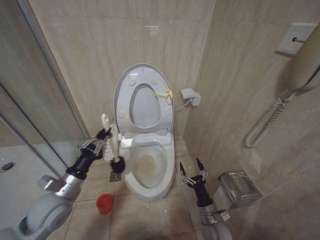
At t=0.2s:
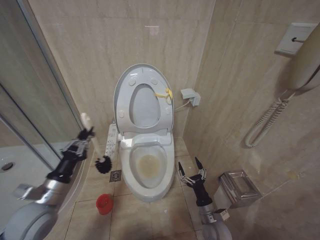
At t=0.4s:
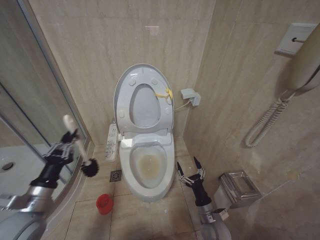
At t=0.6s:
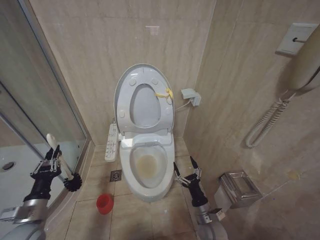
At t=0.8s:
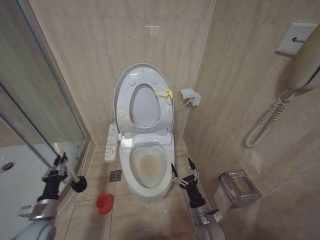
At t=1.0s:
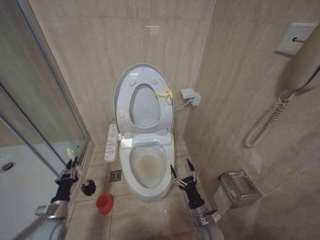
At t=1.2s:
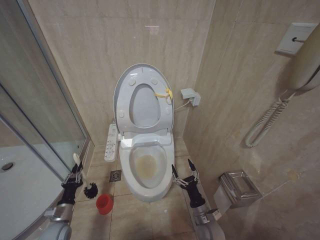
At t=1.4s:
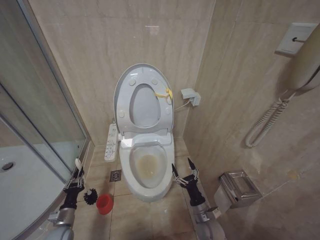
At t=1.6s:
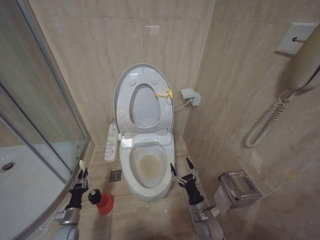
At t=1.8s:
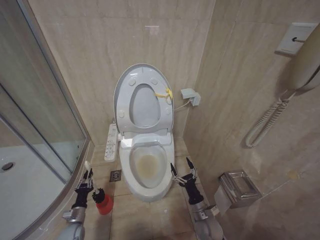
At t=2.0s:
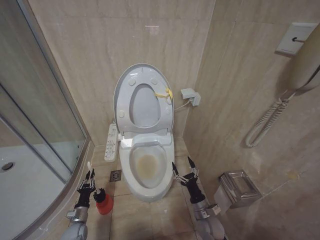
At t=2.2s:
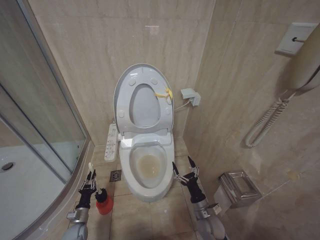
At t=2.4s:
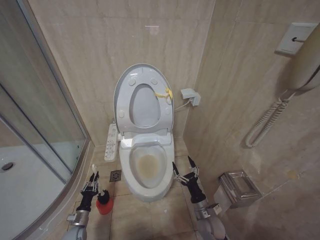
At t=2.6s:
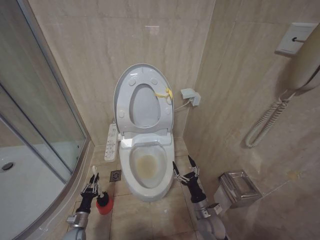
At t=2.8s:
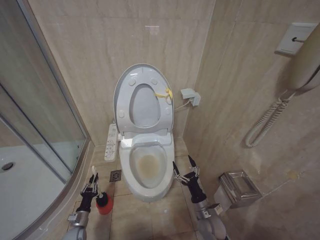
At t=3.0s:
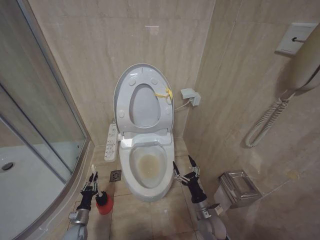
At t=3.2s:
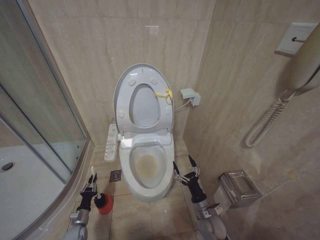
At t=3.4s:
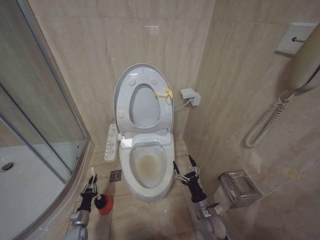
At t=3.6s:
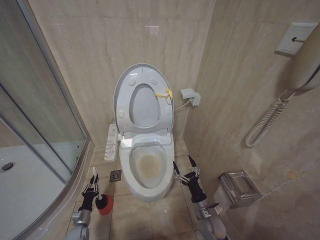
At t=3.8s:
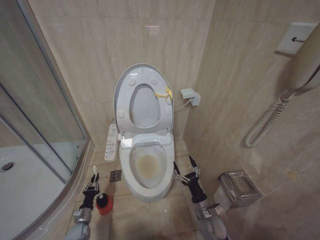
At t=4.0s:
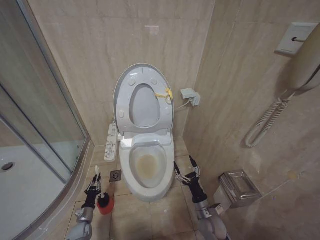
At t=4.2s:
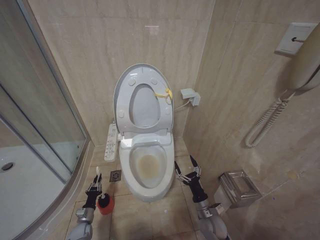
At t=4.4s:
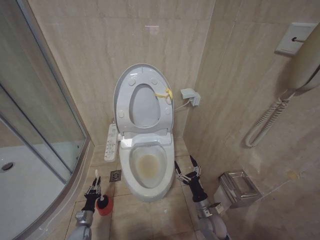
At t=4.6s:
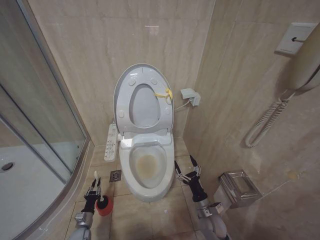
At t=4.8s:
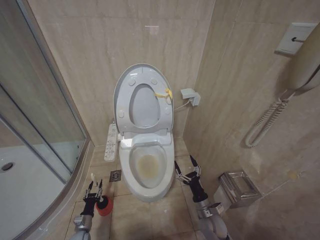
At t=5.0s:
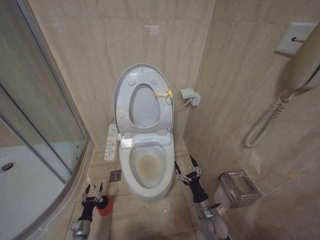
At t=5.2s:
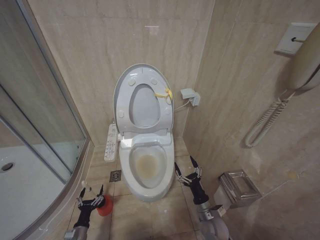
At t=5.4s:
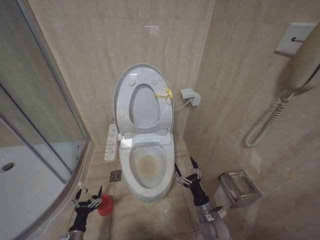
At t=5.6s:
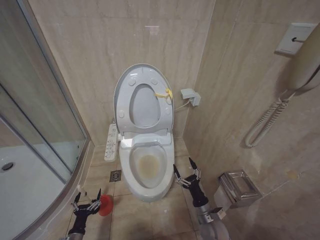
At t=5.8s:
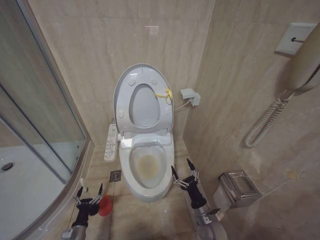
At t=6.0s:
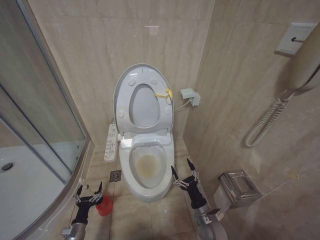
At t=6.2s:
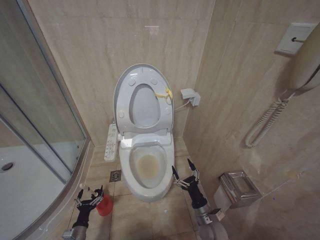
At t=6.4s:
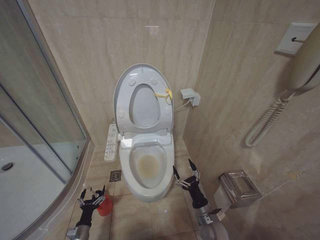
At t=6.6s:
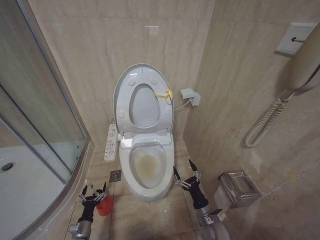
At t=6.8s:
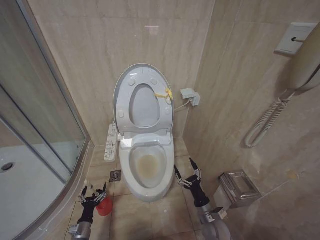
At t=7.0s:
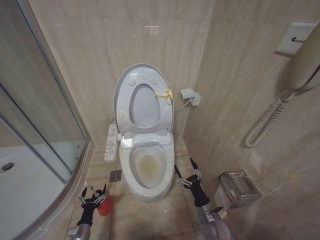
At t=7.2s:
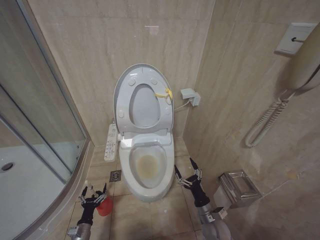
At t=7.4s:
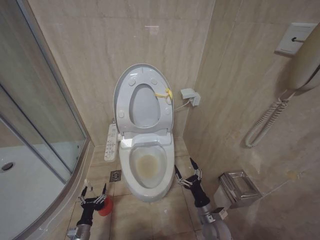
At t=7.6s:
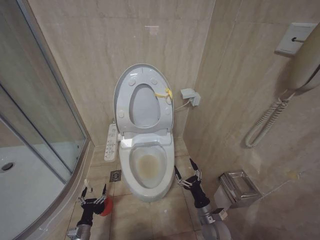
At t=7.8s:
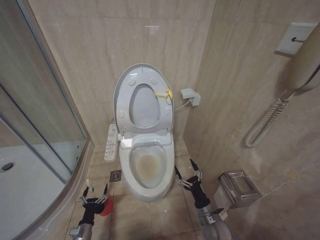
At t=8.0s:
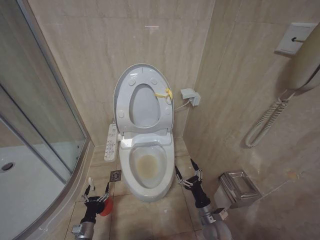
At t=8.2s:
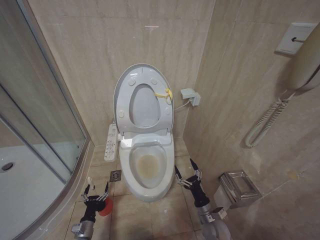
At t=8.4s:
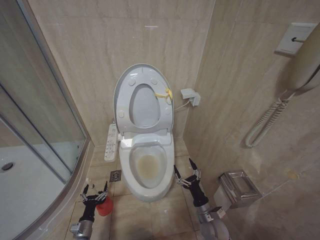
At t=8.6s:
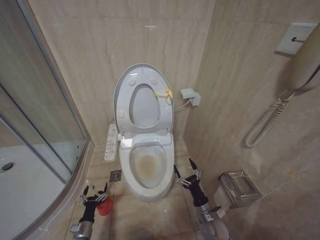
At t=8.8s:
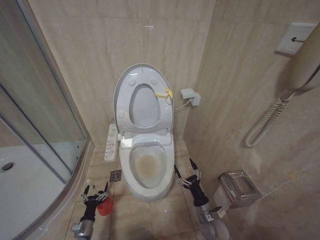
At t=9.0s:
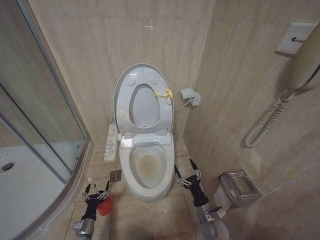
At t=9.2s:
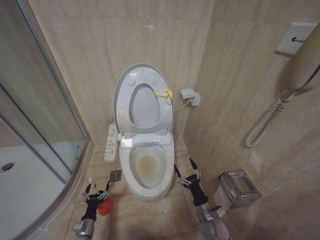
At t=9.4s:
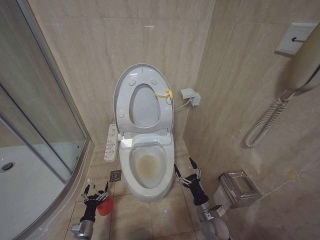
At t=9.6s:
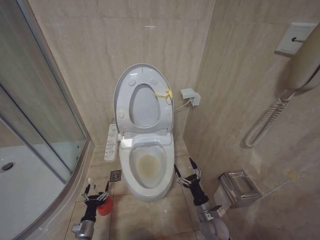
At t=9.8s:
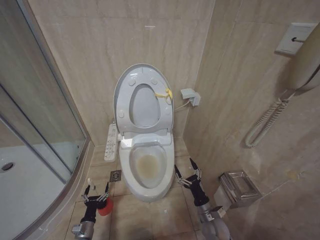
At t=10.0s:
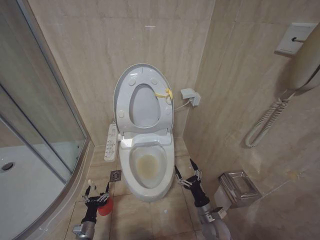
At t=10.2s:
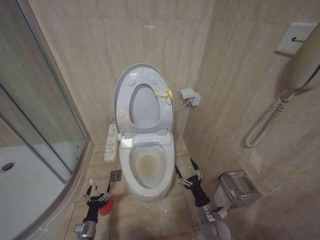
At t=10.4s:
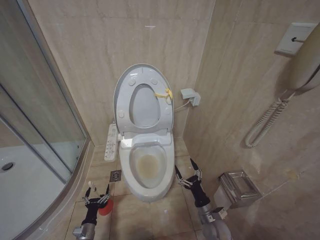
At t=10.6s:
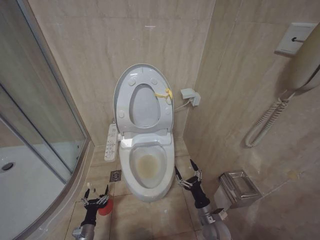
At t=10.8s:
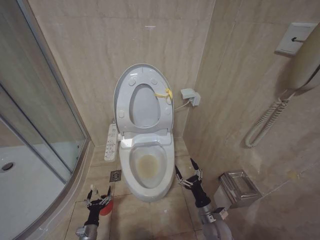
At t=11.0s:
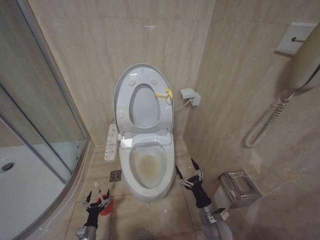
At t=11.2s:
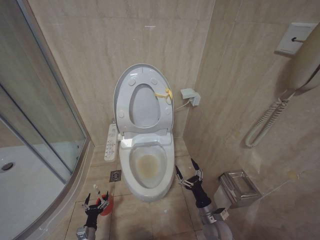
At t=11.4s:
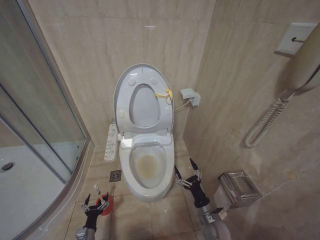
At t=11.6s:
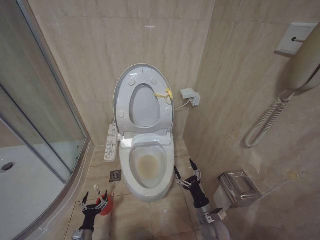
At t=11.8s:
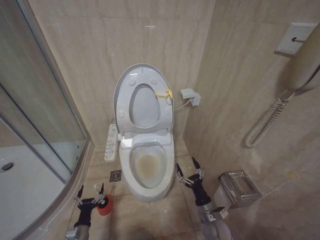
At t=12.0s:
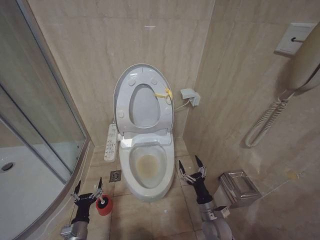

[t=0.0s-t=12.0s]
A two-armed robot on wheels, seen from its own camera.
Task of the whole recording: Open the toilet lid, clean the toilet bowl with a toilet brush, close the toilet lid, and flush.
t=0.0s to t=1.6s: The left gripper goes roughly 25 cm downward.
t=1.6s to t=3.0s: The left gripper goes approximately 5 cm downward.
t=3.0s to t=4.4s: The grippers make only small movements.
t=4.4s to t=6.0s: The left gripper heads backward and upward, covering approximately 10 cm, and opens its fingers.
t=6.0s to t=10.4s: The grippers make only small movements.
t=10.4s to t=12.0s: The left gripper shifts some 10 cm upward.

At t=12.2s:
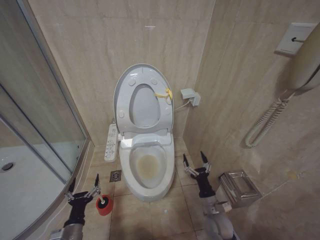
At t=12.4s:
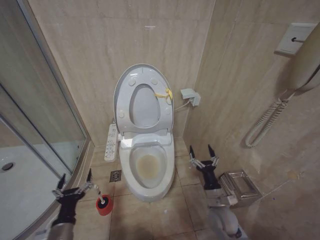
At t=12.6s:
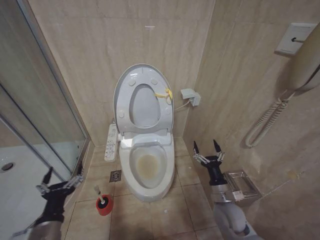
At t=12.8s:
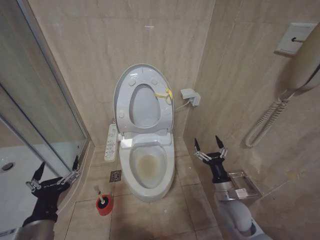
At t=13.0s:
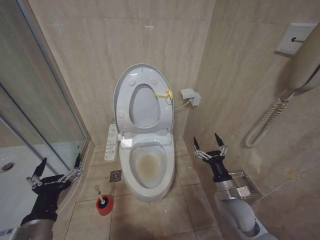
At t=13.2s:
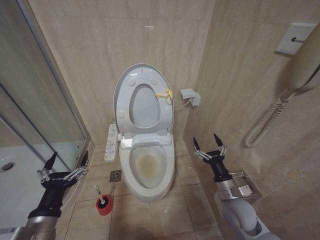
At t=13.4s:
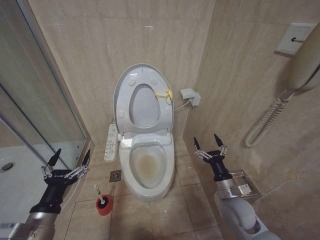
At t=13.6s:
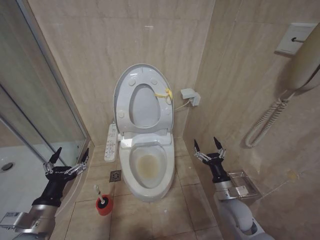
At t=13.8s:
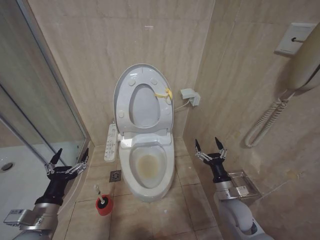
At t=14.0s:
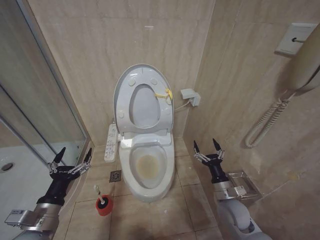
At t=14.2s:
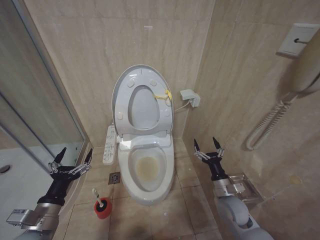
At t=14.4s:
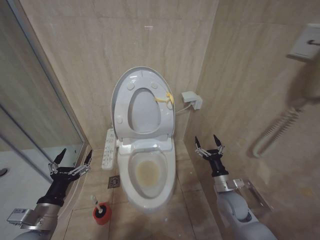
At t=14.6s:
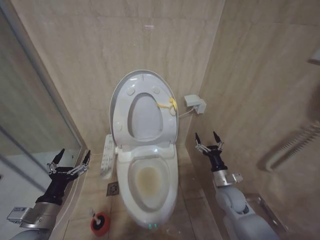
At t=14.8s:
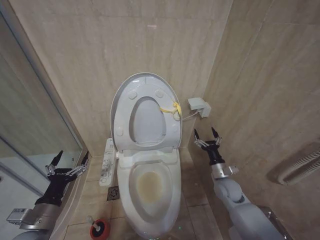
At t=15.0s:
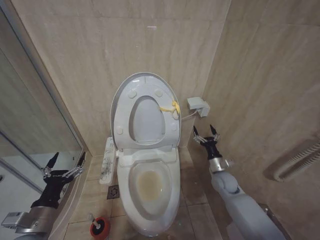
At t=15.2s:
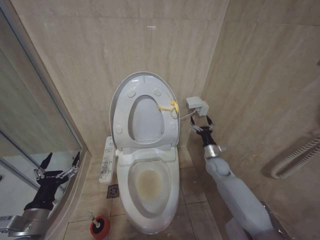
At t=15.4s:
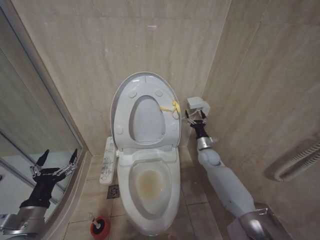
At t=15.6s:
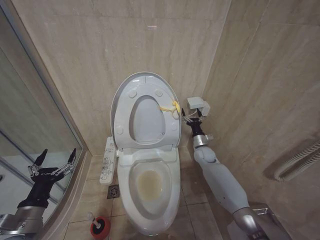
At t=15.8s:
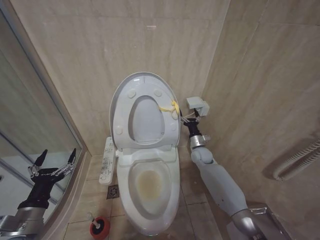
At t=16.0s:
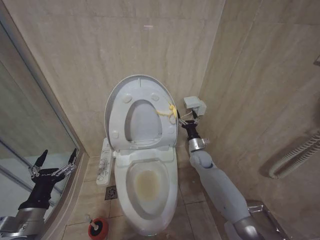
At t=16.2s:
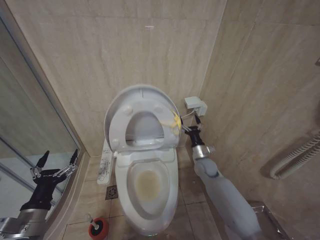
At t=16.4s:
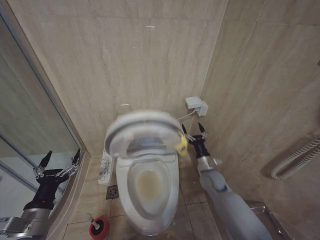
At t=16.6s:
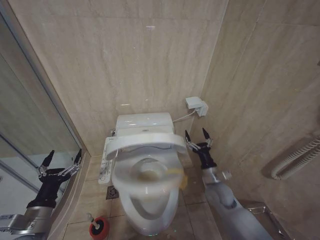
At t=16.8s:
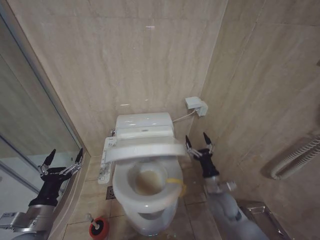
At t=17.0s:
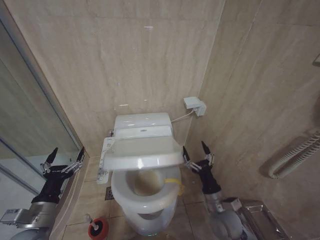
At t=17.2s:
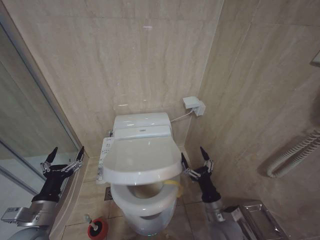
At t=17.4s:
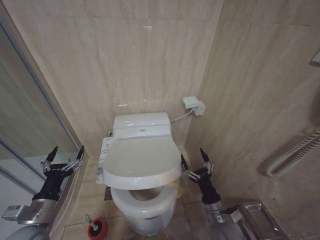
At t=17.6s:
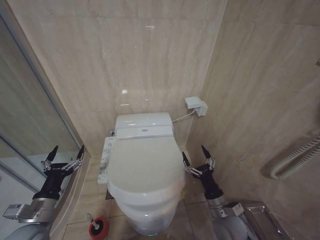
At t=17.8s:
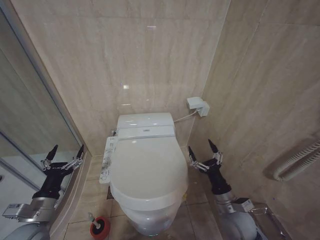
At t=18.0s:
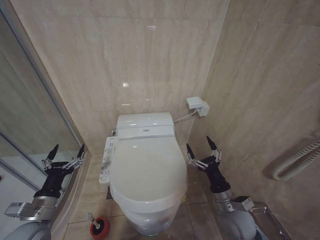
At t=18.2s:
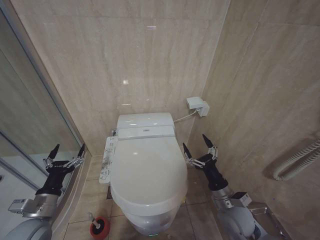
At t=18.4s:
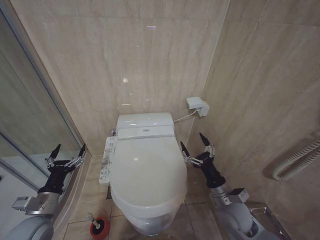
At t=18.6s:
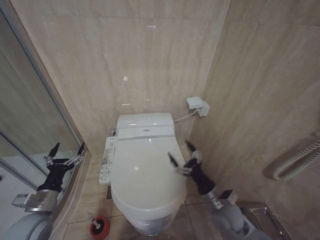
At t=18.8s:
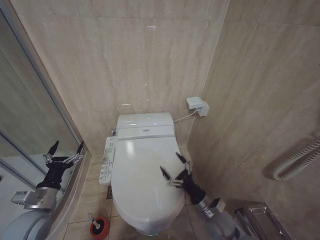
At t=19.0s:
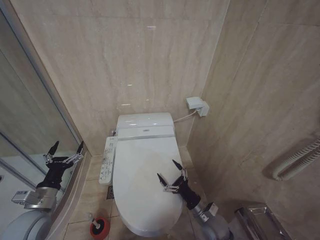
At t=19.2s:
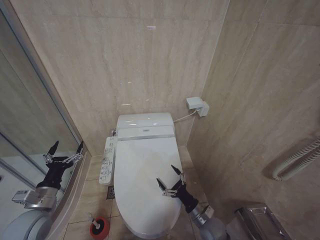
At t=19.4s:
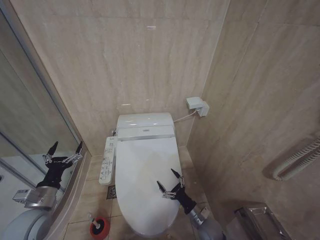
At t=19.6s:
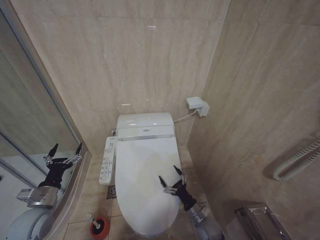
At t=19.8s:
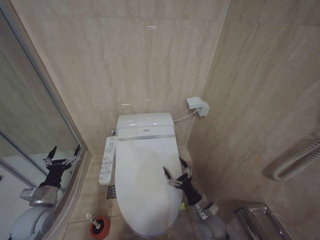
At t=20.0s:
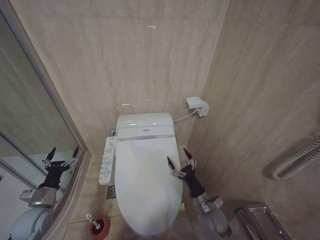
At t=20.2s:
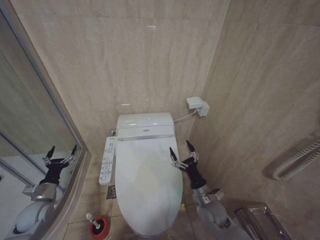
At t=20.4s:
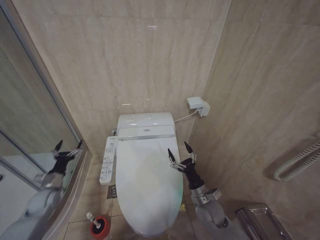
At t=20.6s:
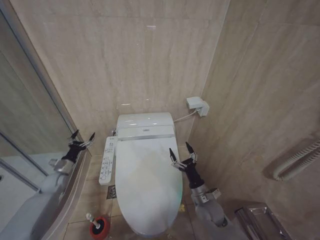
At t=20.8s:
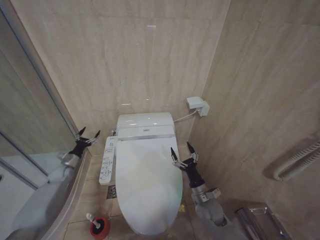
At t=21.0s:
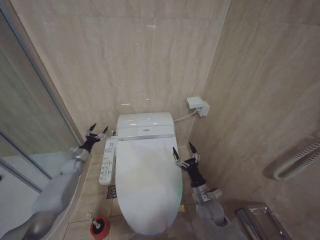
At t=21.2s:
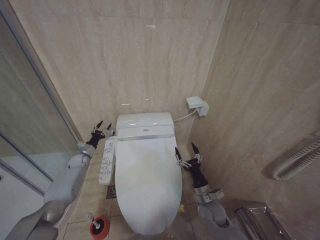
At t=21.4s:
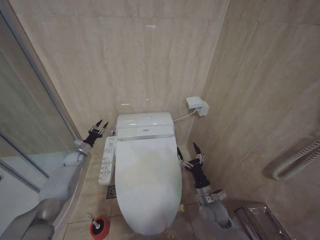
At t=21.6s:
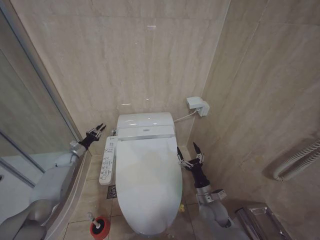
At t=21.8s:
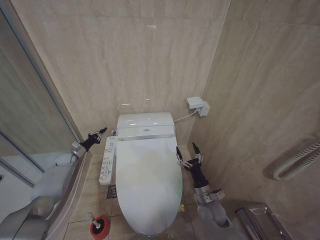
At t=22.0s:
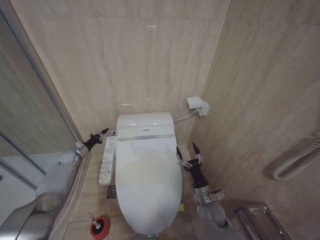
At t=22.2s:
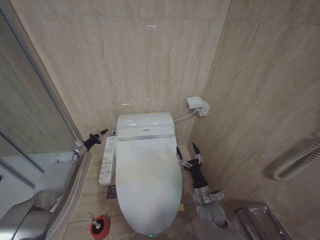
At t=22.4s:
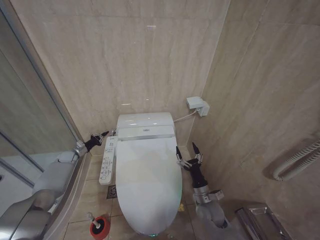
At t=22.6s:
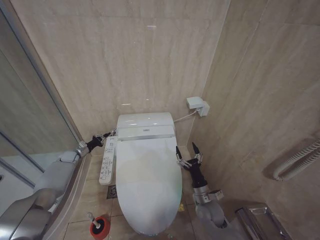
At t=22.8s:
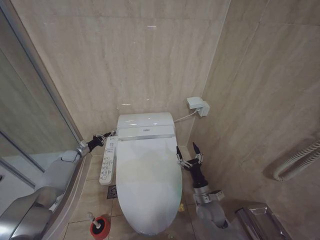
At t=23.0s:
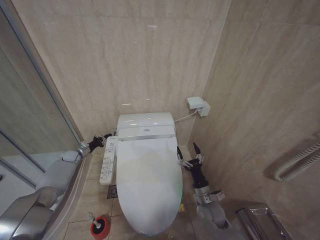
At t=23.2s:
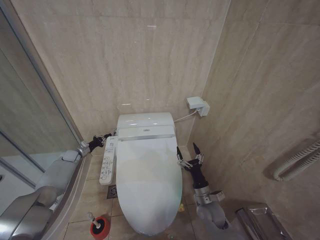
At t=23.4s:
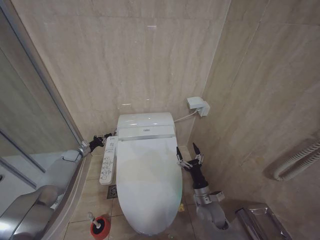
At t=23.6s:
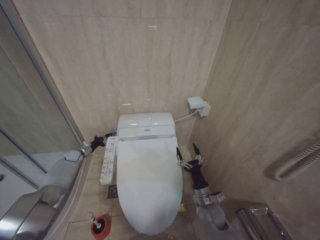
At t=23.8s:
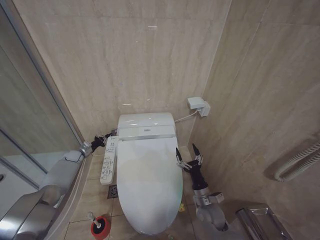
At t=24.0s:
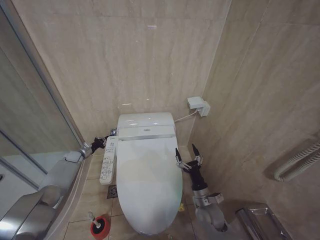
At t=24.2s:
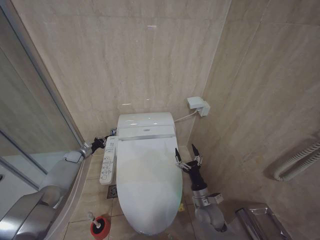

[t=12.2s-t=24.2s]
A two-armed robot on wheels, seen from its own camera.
Task of the whole recording: Open the toilet lid, clean the toilet bowl with a toilet brush, close the toilet lid, and flush.
t=12.2s to t=13.8s: The left gripper heads upward, covering approximately 20 cm. Meanwhile the right gripper goes roughly 10 cm upward.
t=13.8s to t=15.2s: The right gripper travels forward by approximately 15 cm.
t=15.2s to t=16.6s: The right gripper goes some 10 cm backward and to the left.
t=16.6s to t=18.2s: The right gripper is displaced backward by some 10 cm.
t=18.2s to t=19.8s: The right gripper goes approximately 15 cm downward. The left gripper shifts some 5 cm forward.
t=19.8s to t=21.2s: The right gripper shifts approximately 5 cm upward. The left gripper travels forward by roughly 30 cm.
t=21.2s to t=22.6s: The left gripper is displaced to the left by about 5 cm, and closes its fingers.
t=22.6s to t=24.2s: The grippers make only small movements.
